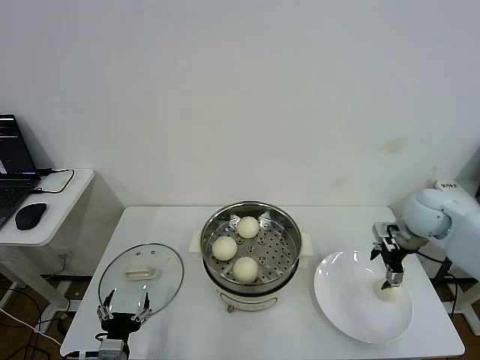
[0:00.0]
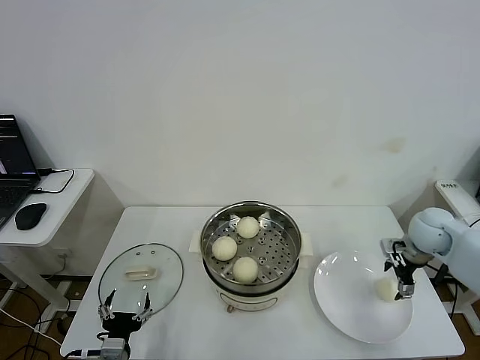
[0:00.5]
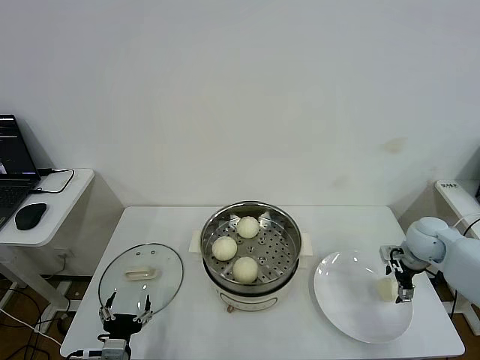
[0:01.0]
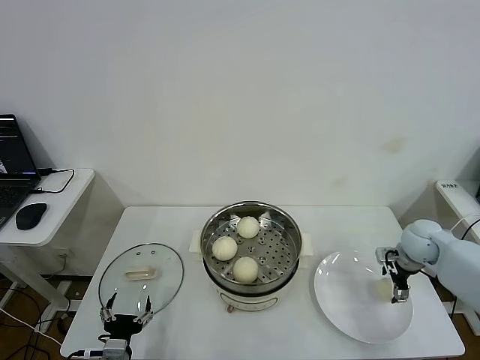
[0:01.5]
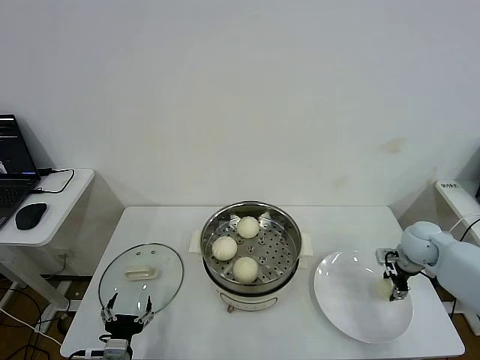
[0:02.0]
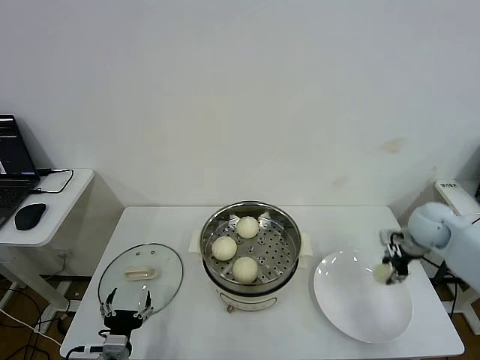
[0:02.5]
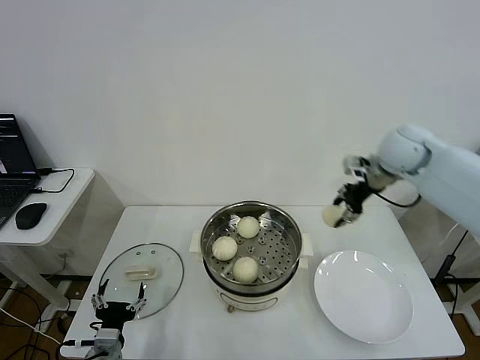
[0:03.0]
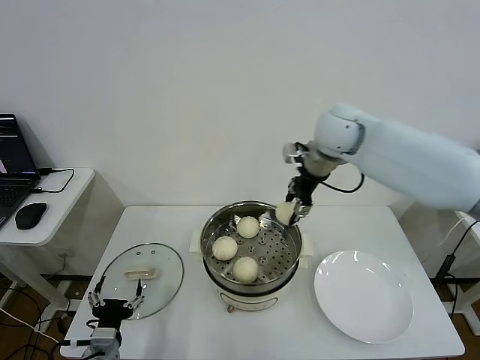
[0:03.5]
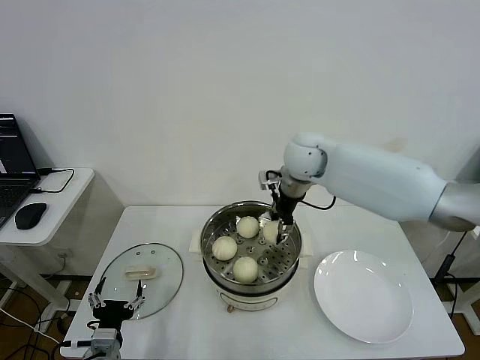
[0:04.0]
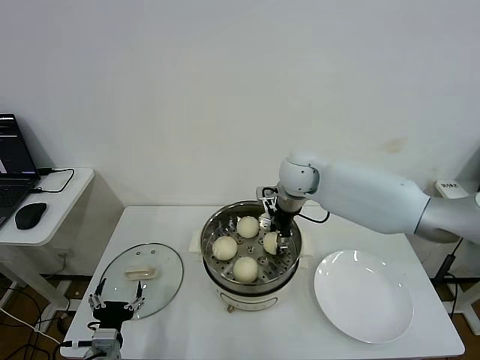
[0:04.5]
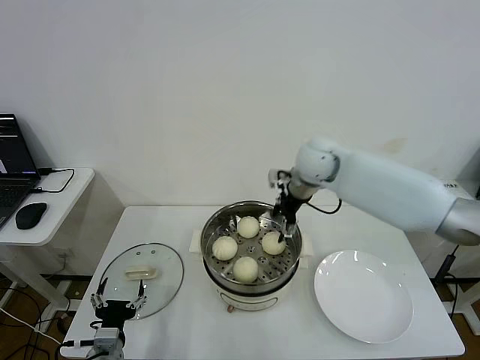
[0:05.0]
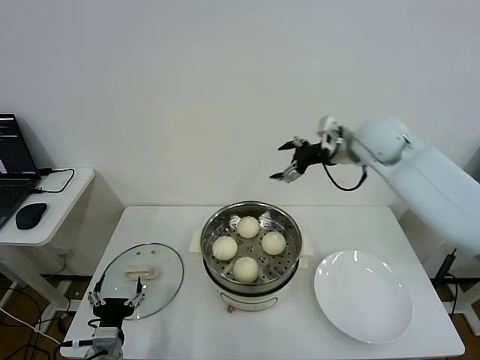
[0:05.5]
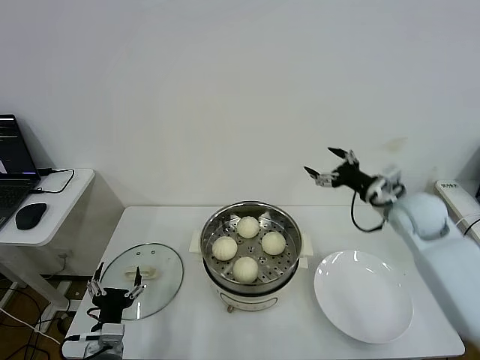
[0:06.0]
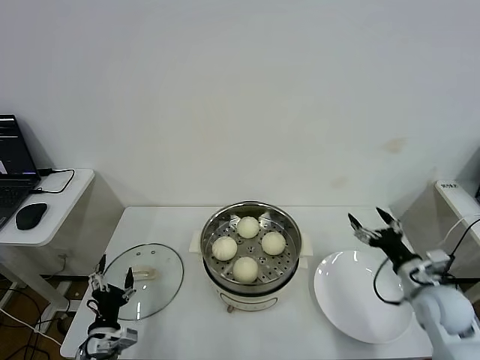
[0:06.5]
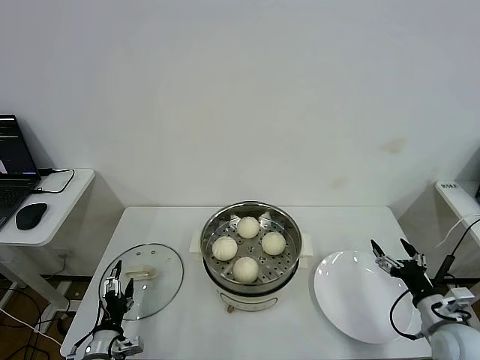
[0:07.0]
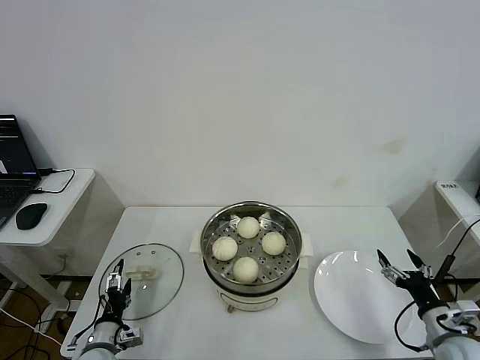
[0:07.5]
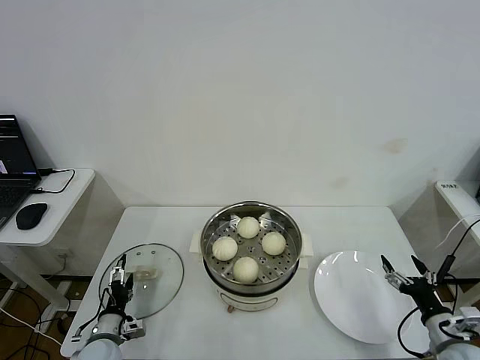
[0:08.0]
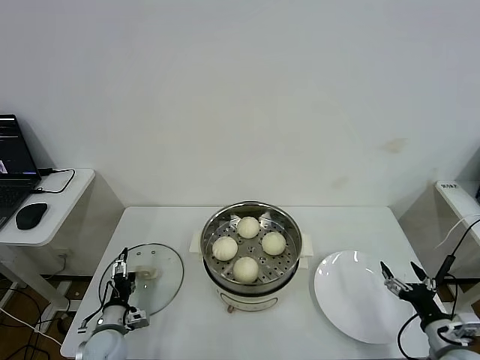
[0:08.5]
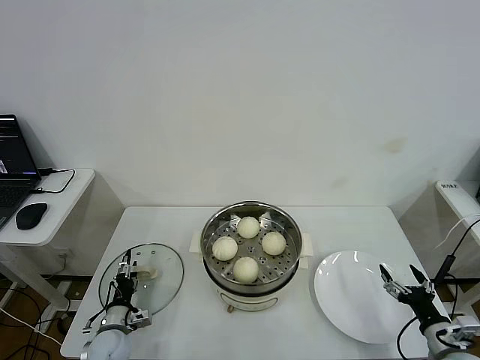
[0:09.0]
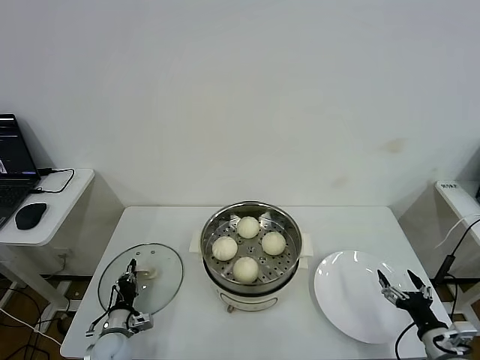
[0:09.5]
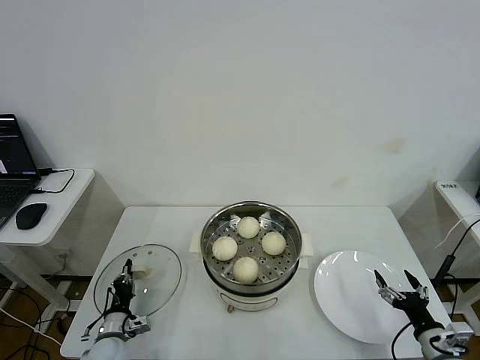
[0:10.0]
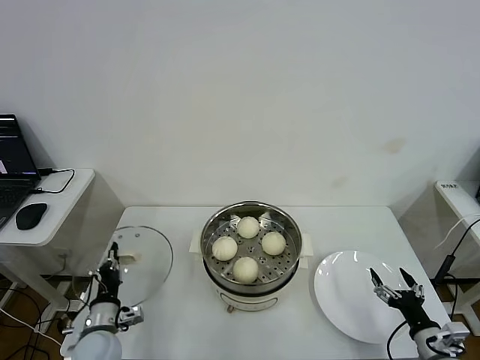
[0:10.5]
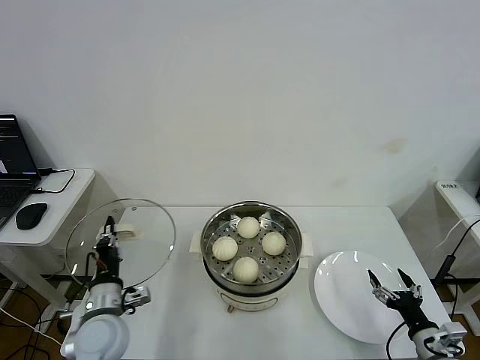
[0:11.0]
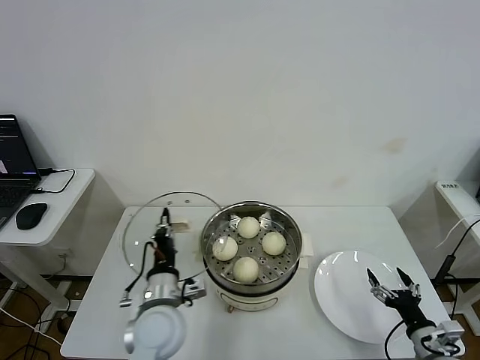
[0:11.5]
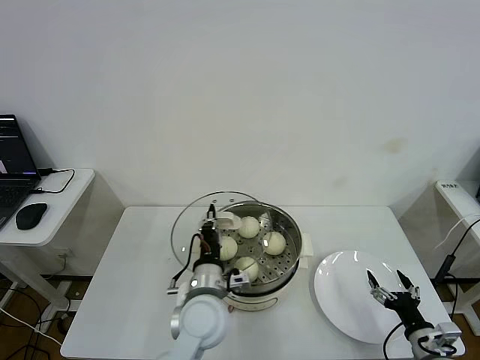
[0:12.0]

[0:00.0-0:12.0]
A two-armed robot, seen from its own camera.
Step, 0:00.0 to 0:02.0: Grasp the baozi in the plate with right gripper.
Step, 0:02.5 to 0:04.5: Place the baozi on the steamer with right gripper.
Step, 0:05.0 to 0:09.5: Grasp the pot lid with left gripper.
0:00.0 to 0:02.0: The right gripper is displaced downward by approximately 10 cm, and closes up.
0:02.0 to 0:04.0: The right gripper travels to the left and upward by roughly 35 cm.
0:04.0 to 0:06.0: The right gripper goes some 25 cm to the right and backward, and opens.
0:06.0 to 0:08.0: The left gripper is displaced downward, forward and to the left by approximately 10 cm. The right gripper heads backward and downward, covering roughly 30 cm.
0:08.0 to 0:10.0: The left gripper closes.
0:10.0 to 0:12.0: The left gripper travels to the right and upward by about 30 cm.

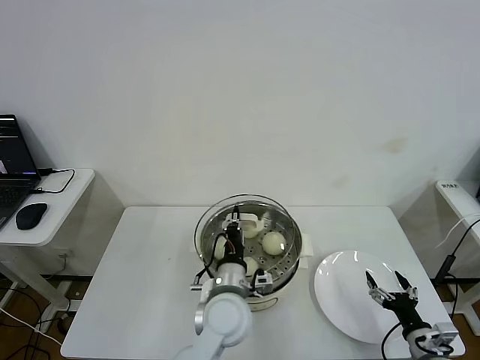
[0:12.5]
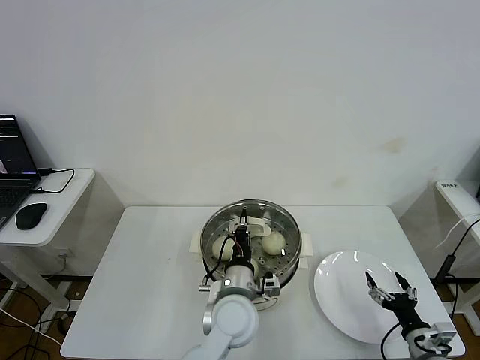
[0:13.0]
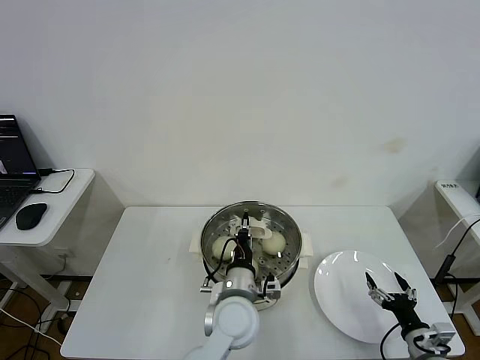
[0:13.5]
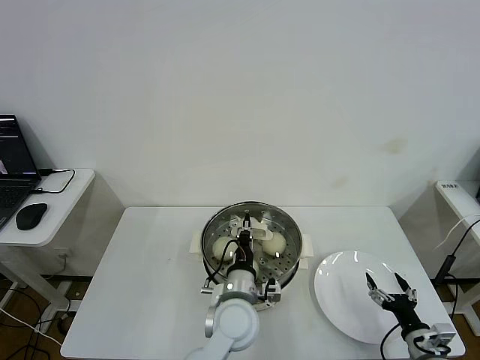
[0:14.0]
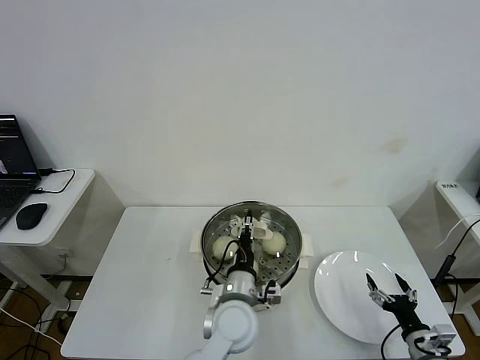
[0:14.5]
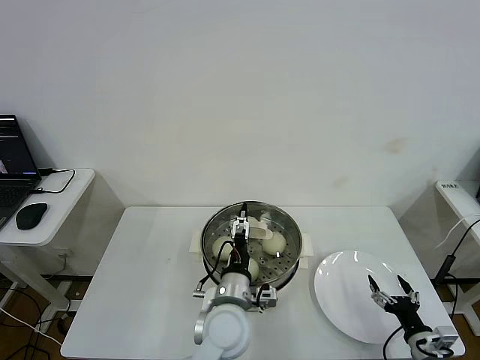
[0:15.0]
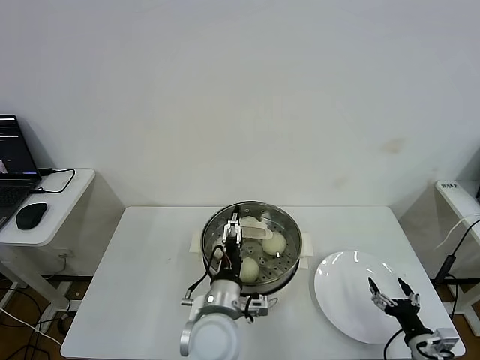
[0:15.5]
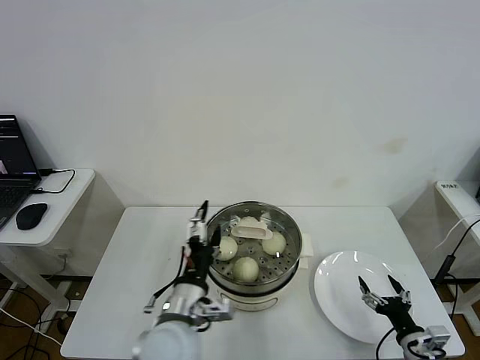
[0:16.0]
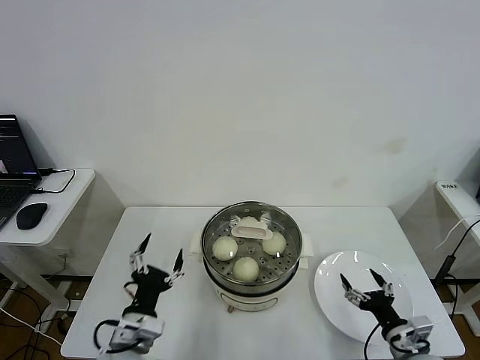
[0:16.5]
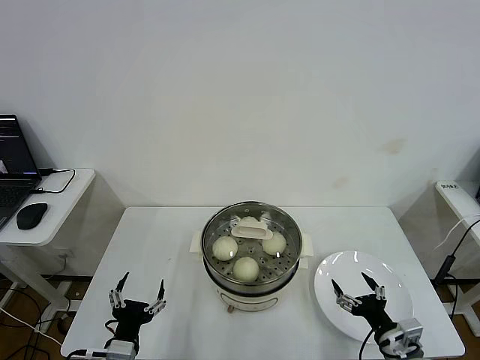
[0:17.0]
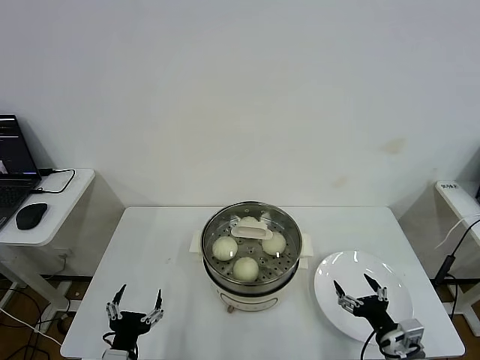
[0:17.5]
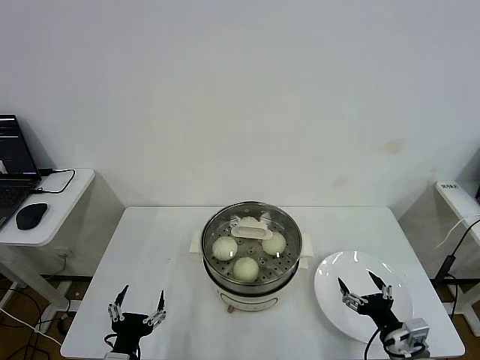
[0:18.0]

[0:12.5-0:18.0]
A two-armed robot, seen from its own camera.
Step, 0:12.5 to 0:14.5: Place the pot lid on the steamer with left gripper.
0:12.5 to 0:14.5: The grippers move only a little.
0:14.5 to 0:16.0: The left gripper heads to the left, backward and upward, covering approximately 10 cm, and opens up.
0:16.0 to 0:18.0: The right gripper moves to the left and upward, roughly 10 cm; the left gripper moves to the left, downward and backward, about 20 cm.

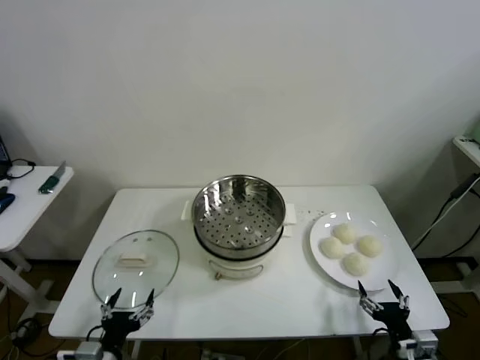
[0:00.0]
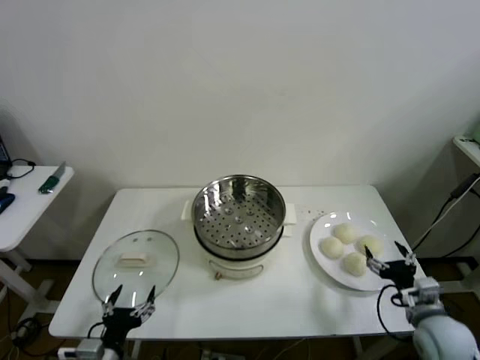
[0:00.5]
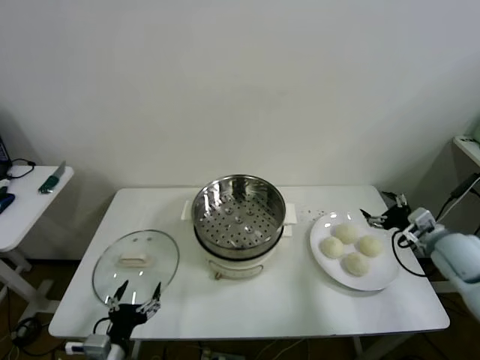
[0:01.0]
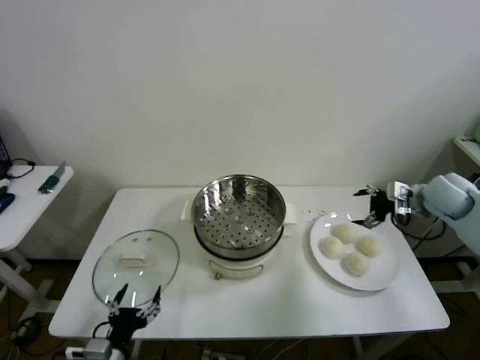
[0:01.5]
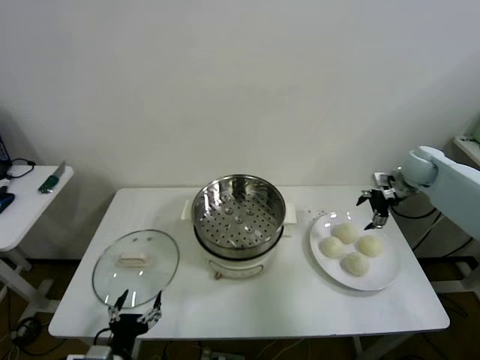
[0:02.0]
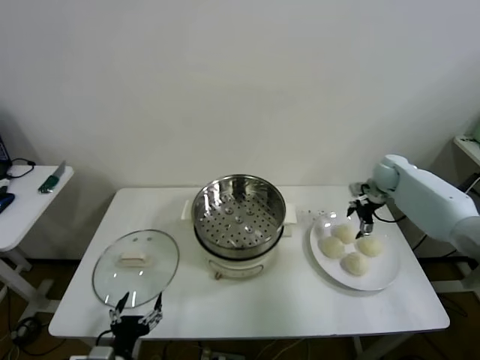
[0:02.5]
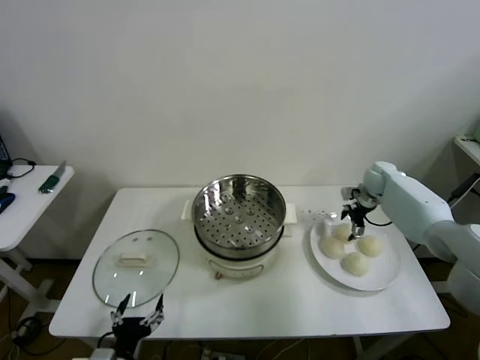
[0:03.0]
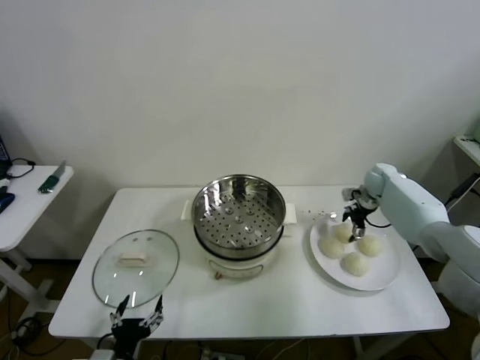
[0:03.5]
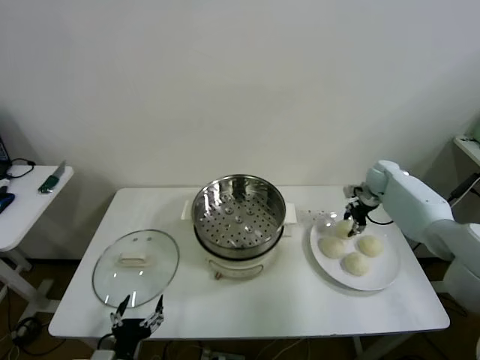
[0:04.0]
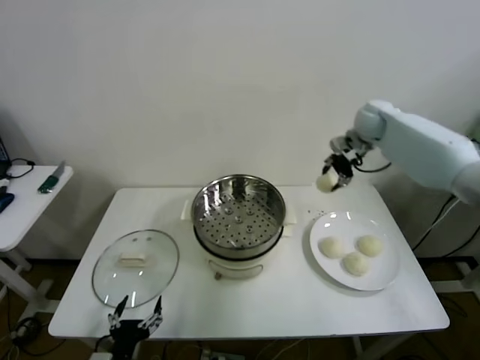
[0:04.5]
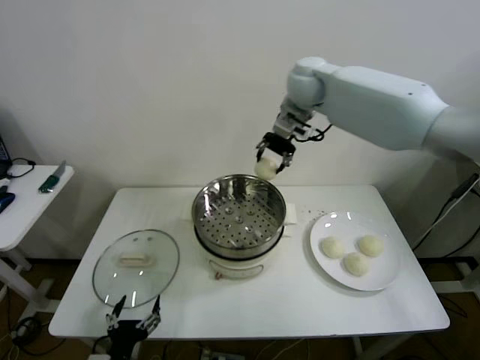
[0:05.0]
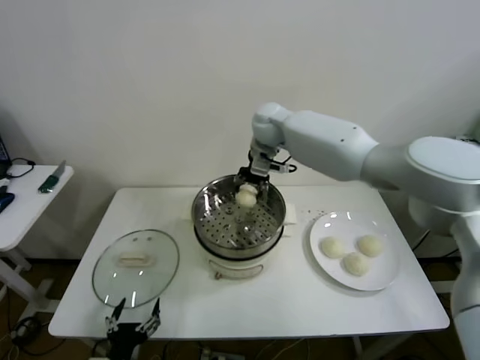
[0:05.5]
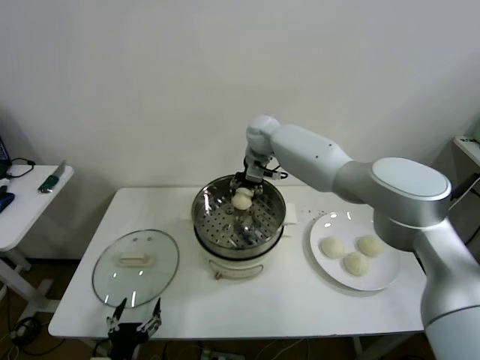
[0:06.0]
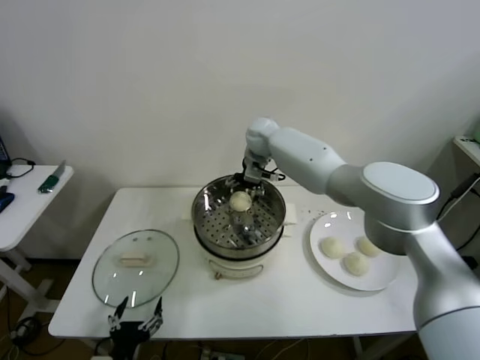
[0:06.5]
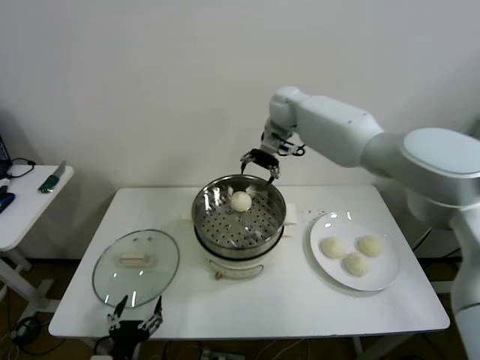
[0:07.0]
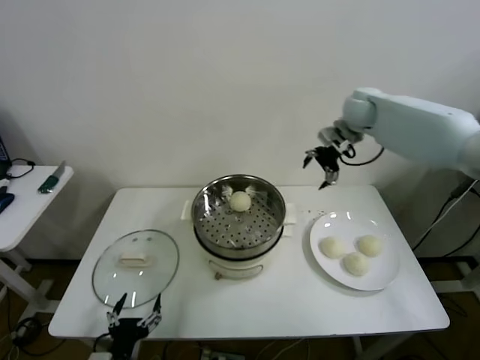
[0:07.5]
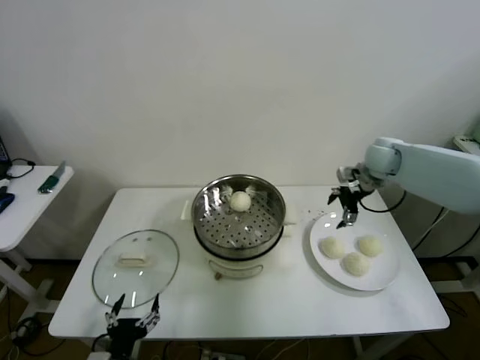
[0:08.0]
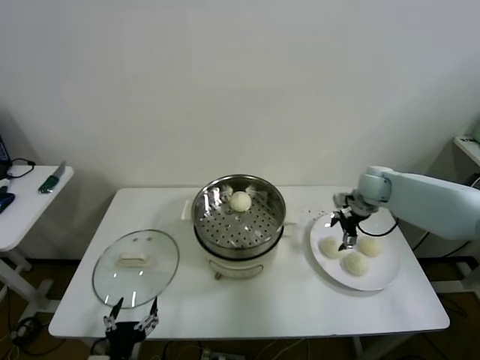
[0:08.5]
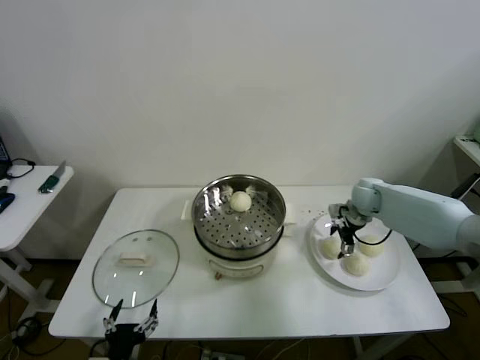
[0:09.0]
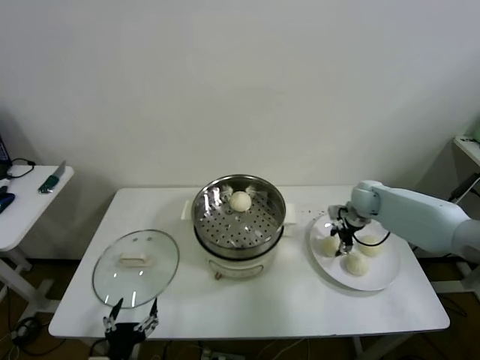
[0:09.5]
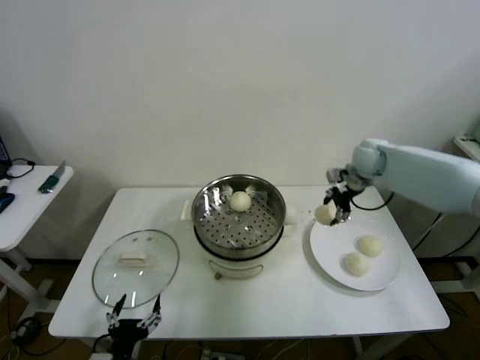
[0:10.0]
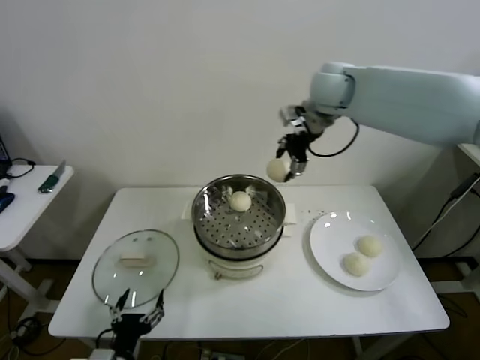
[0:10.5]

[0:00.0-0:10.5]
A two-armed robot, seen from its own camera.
Step, 0:00.0 to 0:03.5: Grasp the baozi in the plate with right gripper.
Step, 0:04.0 to 0:06.0: Place the baozi on the steamer with right gripper.
Step, 0:06.5 to 0:09.0: Grasp the baozi in the plate with right gripper.
0:02.0 to 0:04.0: The right gripper moves downward and forward, roughly 10 cm, and closes its fingers.
0:04.0 to 0:06.5: The right gripper moves to the left, some 35 cm, and opens up.
0:06.5 to 0:08.5: The right gripper shifts some 30 cm to the right.
0:08.5 to 0:10.5: The right gripper shifts some 30 cm upward and to the left, and closes its fingers.
